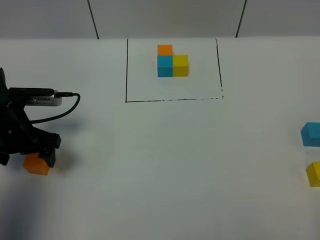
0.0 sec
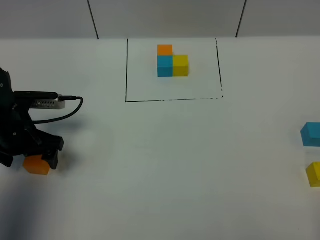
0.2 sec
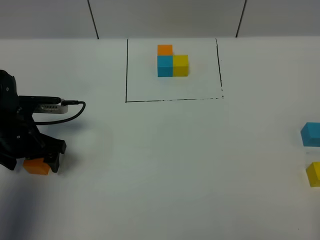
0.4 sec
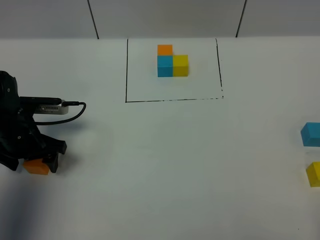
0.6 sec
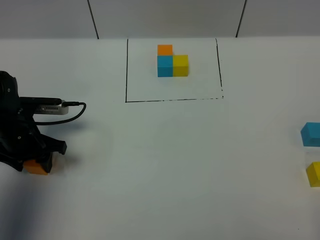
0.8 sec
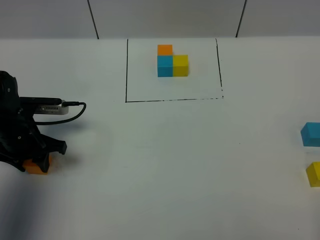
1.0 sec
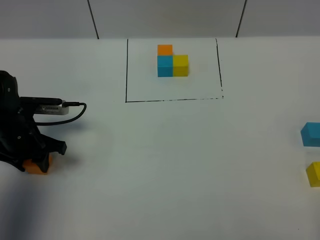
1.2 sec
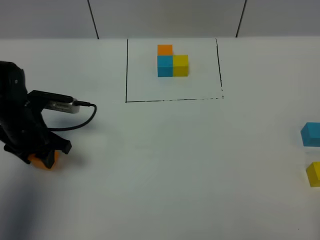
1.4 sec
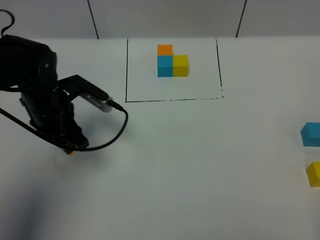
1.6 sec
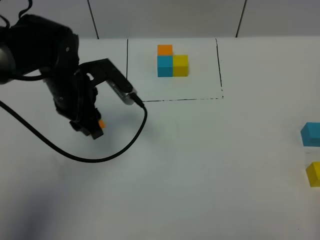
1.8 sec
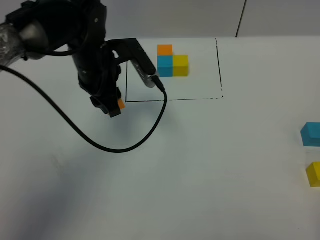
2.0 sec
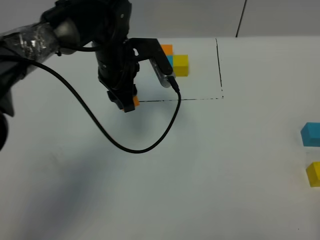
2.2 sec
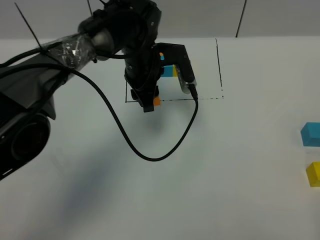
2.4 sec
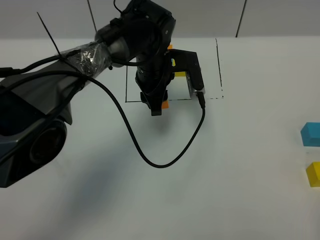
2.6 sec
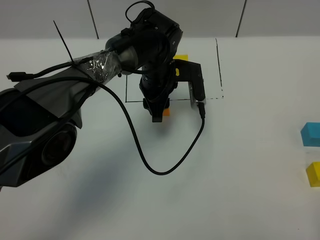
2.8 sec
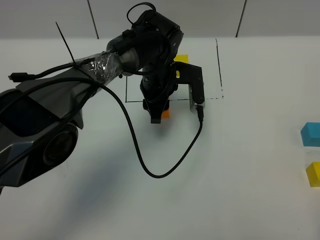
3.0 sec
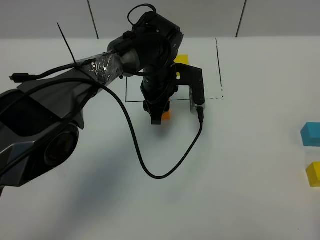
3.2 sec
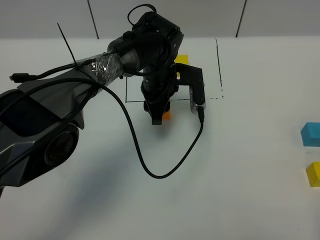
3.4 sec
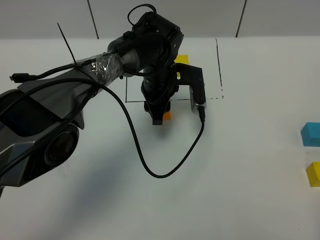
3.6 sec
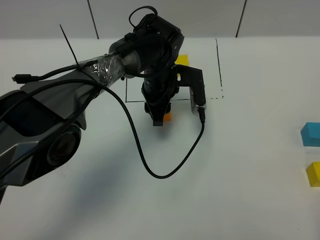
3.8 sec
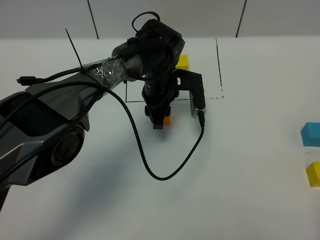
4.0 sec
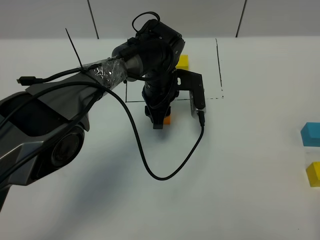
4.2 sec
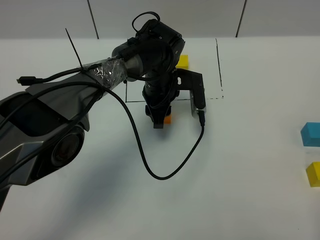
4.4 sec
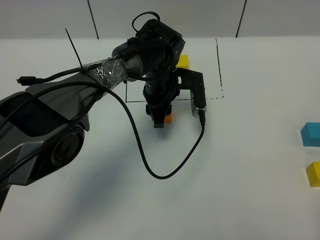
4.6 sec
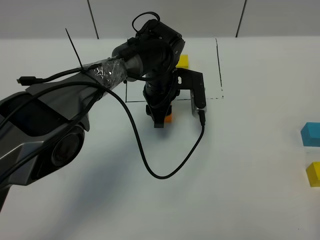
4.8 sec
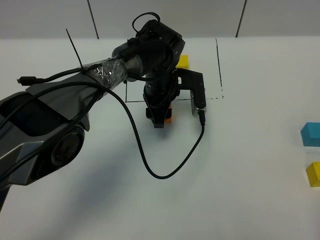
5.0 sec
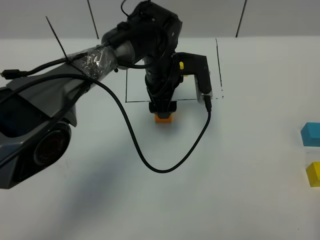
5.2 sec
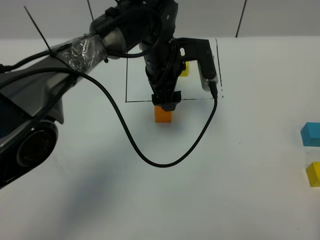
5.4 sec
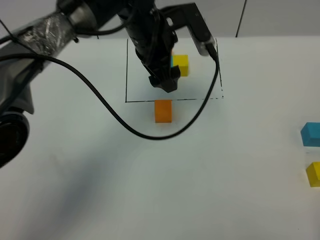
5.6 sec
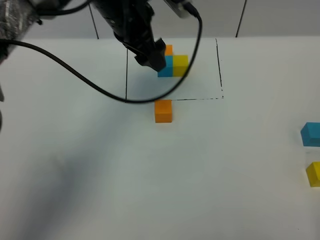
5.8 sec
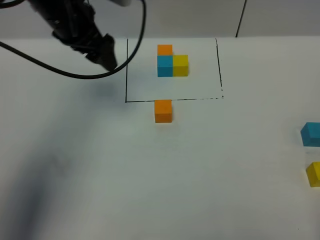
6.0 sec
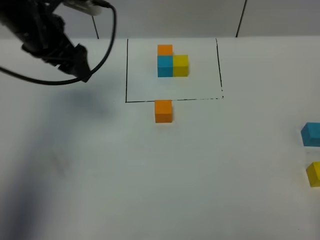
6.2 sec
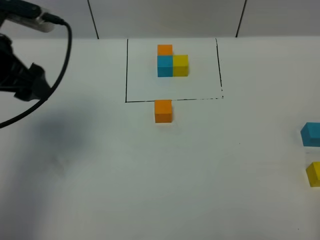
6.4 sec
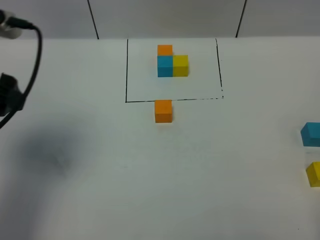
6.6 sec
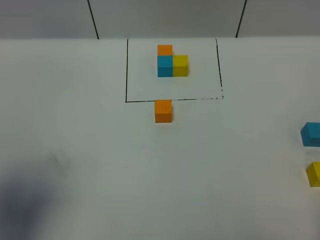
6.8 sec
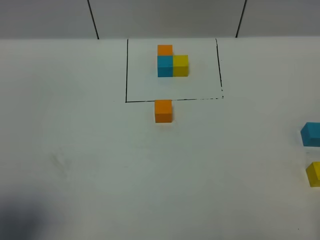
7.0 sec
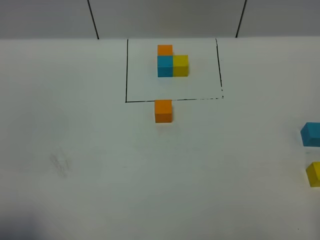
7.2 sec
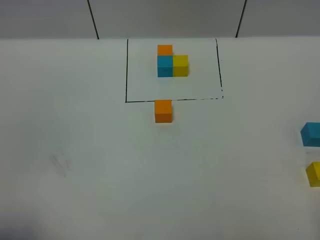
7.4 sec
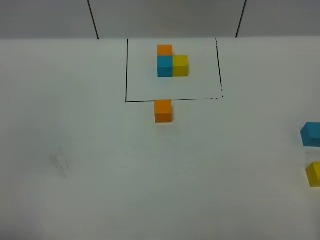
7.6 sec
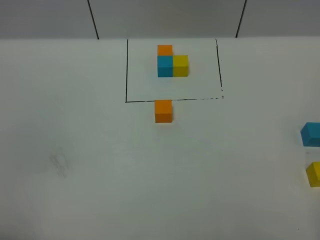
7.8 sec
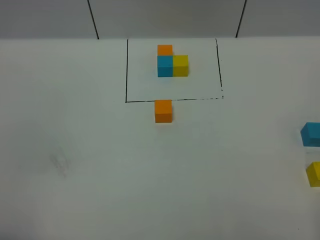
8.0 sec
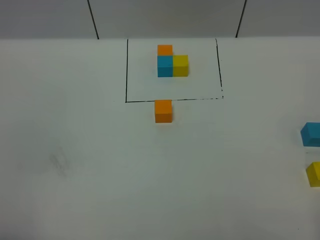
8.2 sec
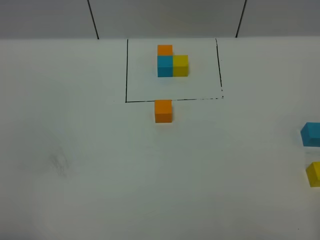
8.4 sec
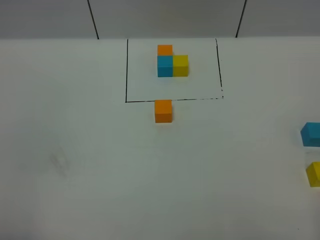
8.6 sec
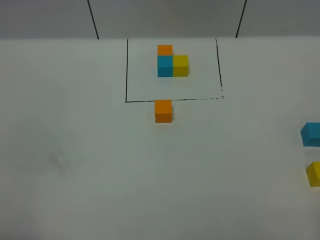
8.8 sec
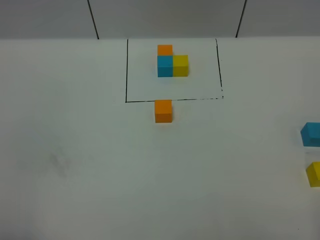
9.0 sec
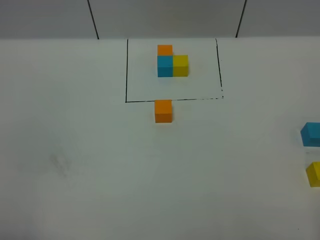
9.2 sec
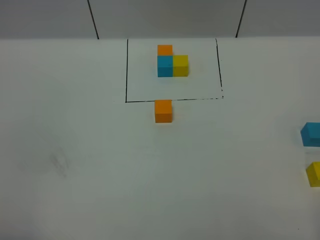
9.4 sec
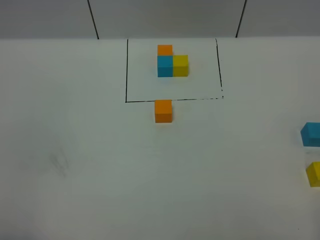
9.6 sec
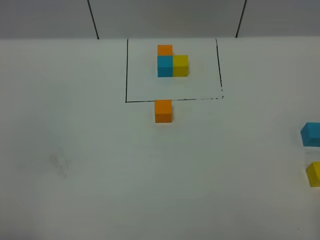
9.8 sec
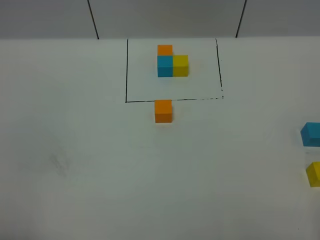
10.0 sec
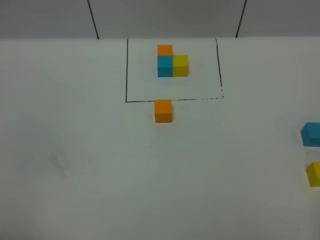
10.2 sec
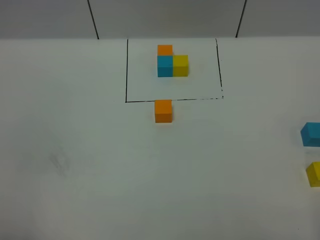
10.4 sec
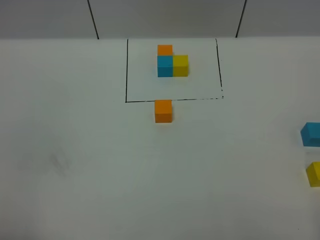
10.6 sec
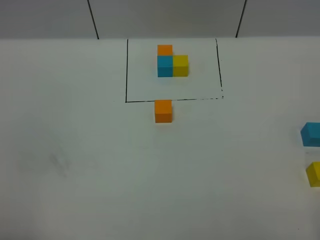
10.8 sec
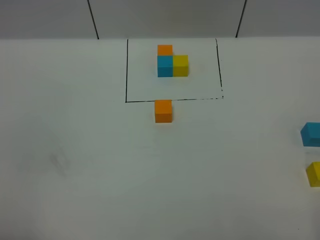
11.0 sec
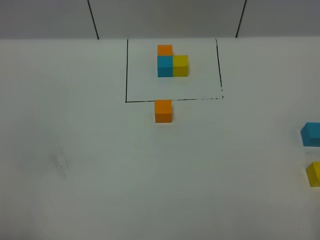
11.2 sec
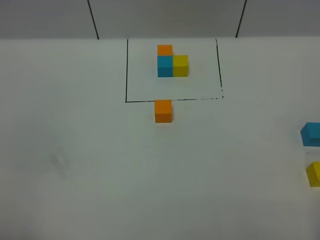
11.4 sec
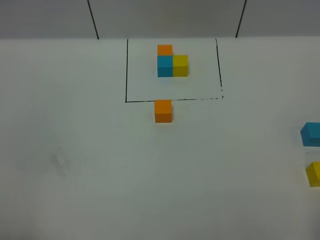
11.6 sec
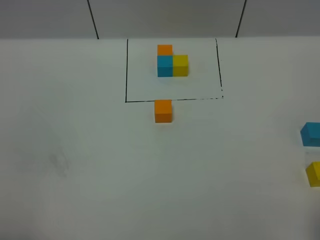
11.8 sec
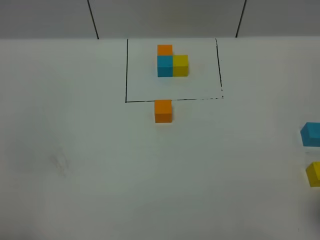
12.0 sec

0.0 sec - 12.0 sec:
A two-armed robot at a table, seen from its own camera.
Task of the whole recording: According to the building block template in front, assemble the scattered blocks together.
Step, 0.0 sec - 4.8 sec: Put the orange build block in the center of the table.
0.0 sec - 1.6 sec: The left gripper goes approximately 10 cm to the right, and closes its fingers.
1.6 sec - 3.0 sec: The left gripper moves to the right and forward, roughly 20 cm.
3.0 sec - 4.4 sec: The grippers move only a little.
4.4 sec - 6.0 sec: The left gripper travels to the left and upward by approximately 25 cm, and opens its fingers.
6.0 sec - 7.6 sec: The left gripper shifts roughly 40 cm backward.
9.0 sec - 10.4 sec: The two grippers keep their place.

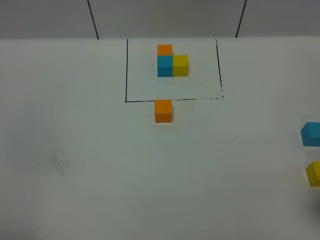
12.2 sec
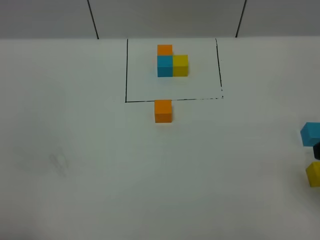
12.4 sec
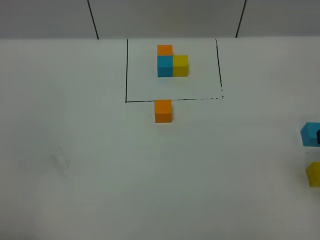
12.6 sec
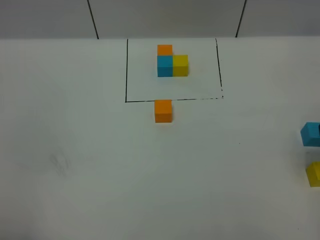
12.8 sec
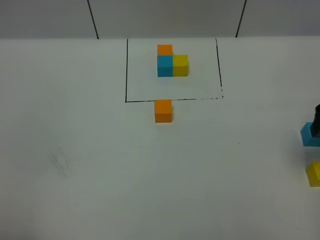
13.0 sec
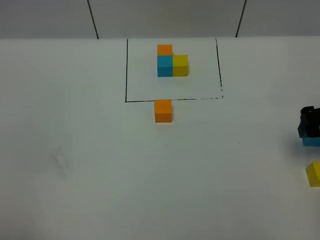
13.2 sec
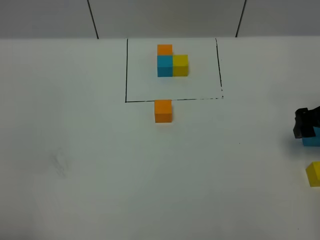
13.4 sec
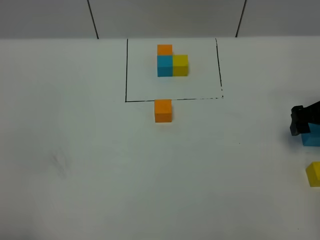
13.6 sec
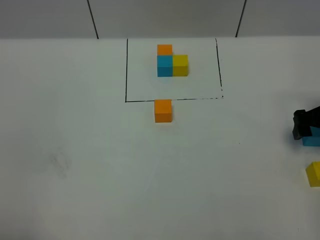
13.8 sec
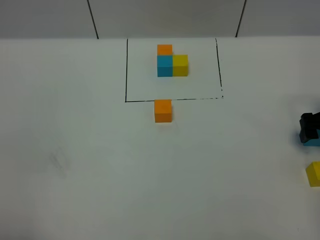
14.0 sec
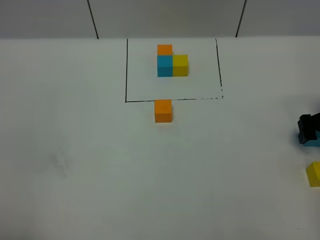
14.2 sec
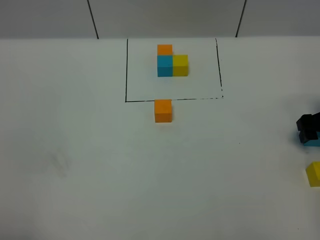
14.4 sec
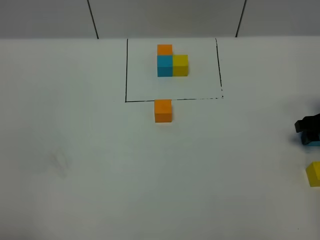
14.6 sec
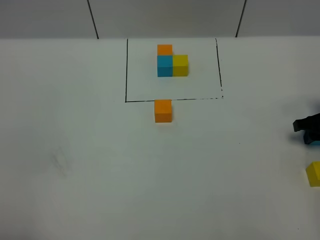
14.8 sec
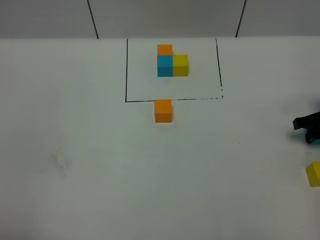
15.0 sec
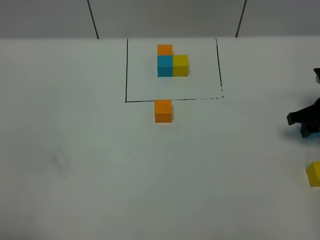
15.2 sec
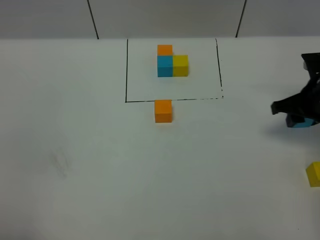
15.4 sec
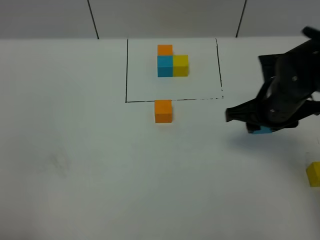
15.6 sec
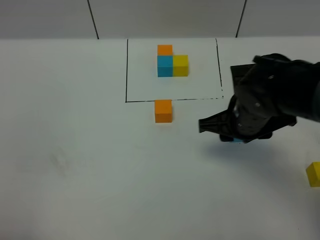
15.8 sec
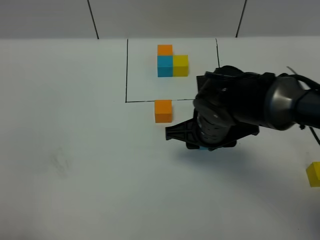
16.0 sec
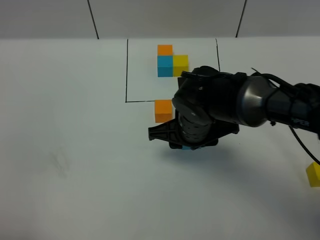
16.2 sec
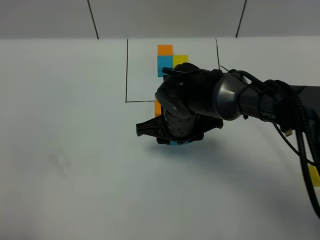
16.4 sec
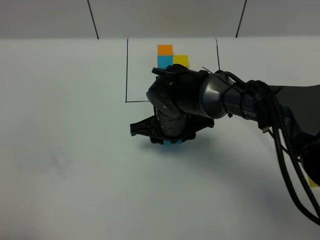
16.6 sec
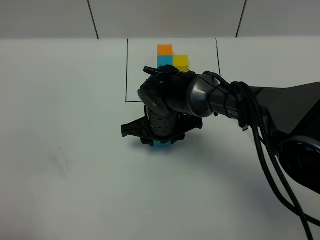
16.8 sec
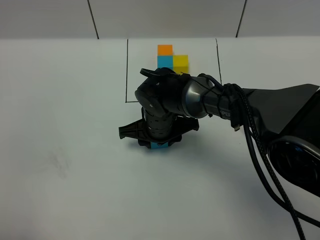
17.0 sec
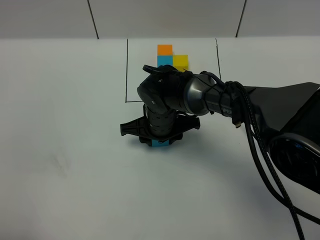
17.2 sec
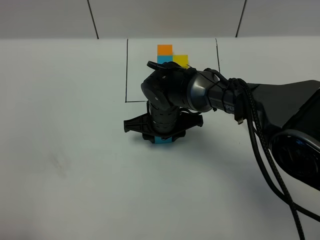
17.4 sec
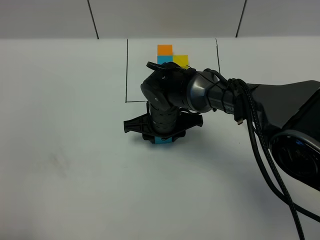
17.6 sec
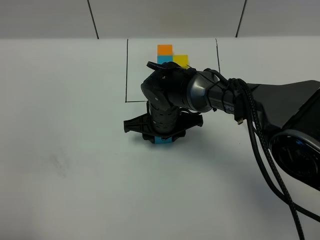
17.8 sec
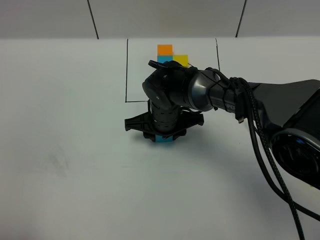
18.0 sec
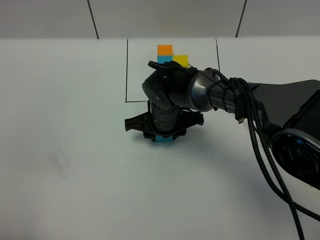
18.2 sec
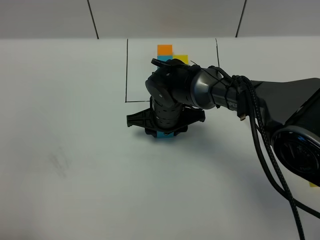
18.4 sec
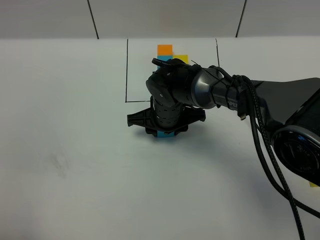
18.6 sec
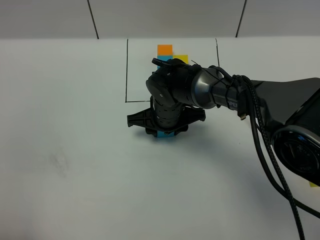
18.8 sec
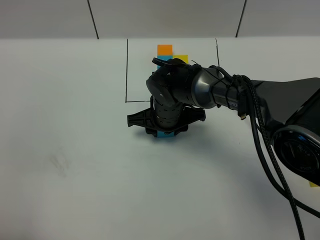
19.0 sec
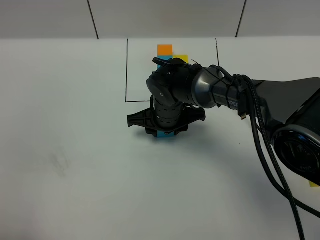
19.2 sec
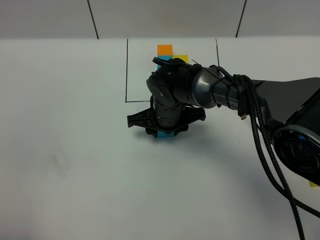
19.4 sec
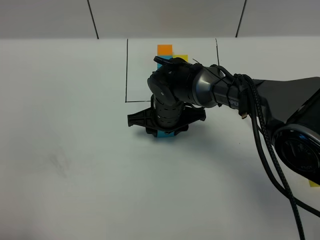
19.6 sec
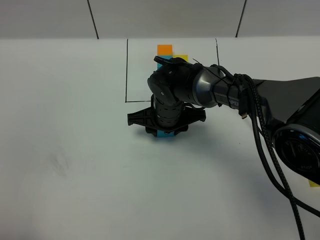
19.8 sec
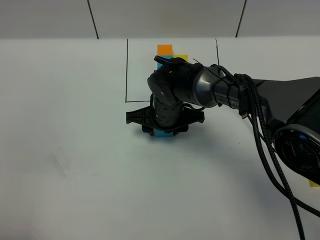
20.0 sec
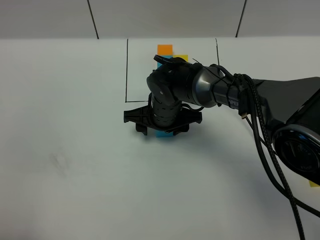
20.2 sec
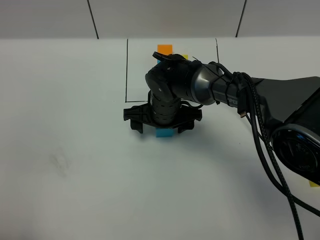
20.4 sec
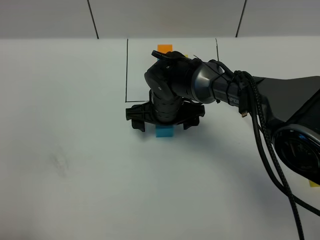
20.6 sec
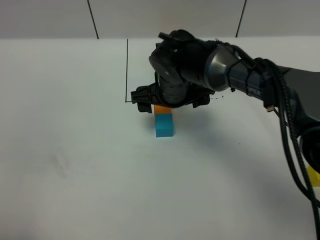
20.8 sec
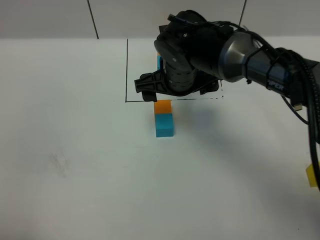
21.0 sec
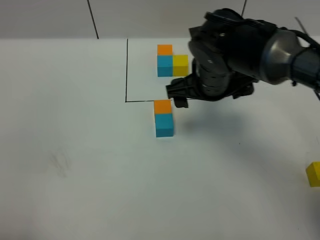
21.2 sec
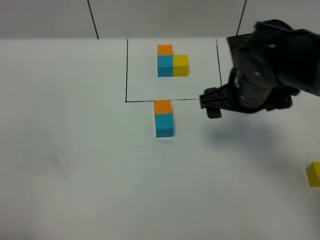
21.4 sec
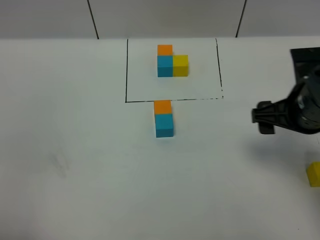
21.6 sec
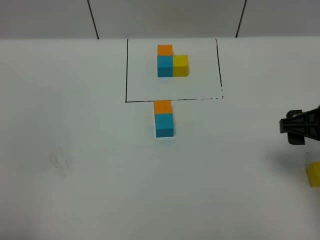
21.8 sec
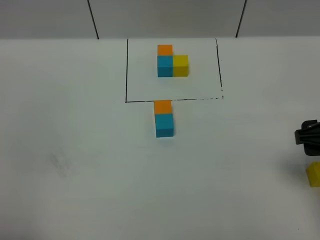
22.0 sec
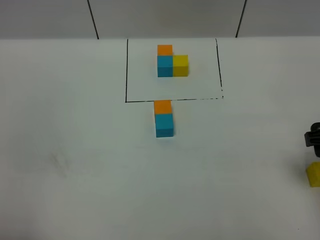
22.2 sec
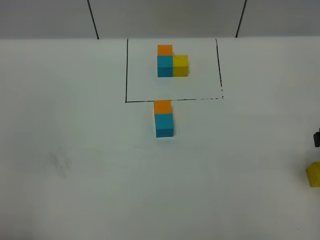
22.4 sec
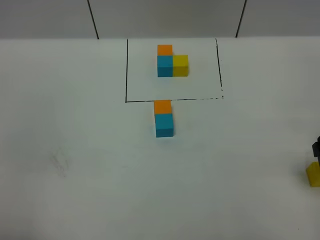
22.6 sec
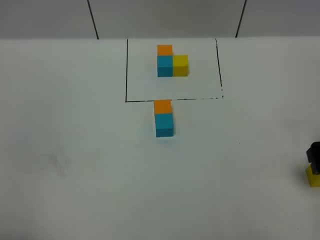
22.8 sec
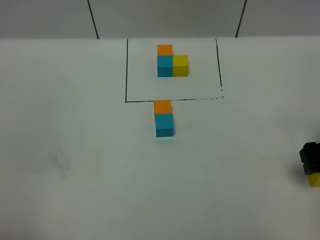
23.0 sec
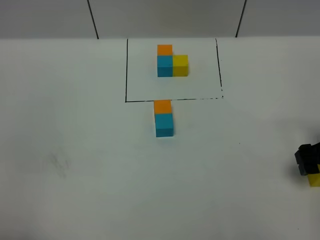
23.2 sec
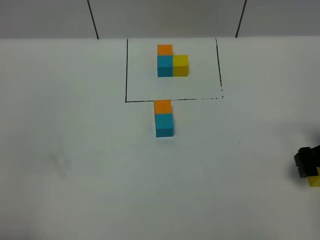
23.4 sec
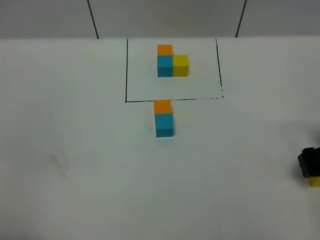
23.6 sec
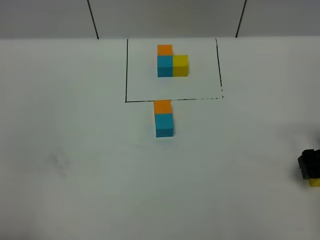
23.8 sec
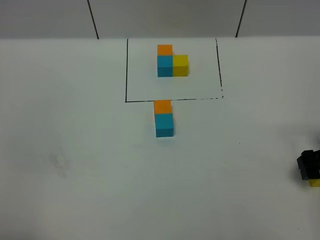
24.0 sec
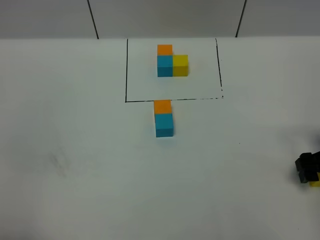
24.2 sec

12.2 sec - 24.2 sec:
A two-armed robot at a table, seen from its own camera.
Task of the whole recording: According to the building block template in front, assemble the scattered blocks together.
Step, 12.2 sec - 20.2 sec: Put the blue build block on the behind of the orange build block.
12.2 sec - 13.8 sec: The right gripper travels forward and downward by roughly 20 cm.
13.8 sec - 15.2 sec: The right gripper closes its fingers.
15.2 sec - 16.6 sec: The right gripper shifts some 30 cm to the left.
16.6 sec - 18.2 sec: The grippers stay close to where they were, moving slightly.
18.2 sec - 19.8 sec: Neither gripper changes place.
19.8 sec - 21.2 sec: The right gripper goes roughly 15 cm upward and to the right, and opens up.
21.2 sec - 22.6 sec: The right gripper goes about 25 cm to the right and backward.
22.6 sec - 24.2 sec: The right gripper goes about 10 cm downward.
